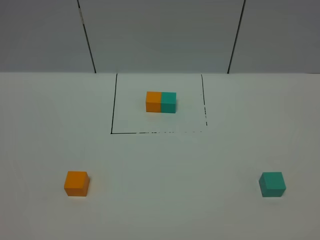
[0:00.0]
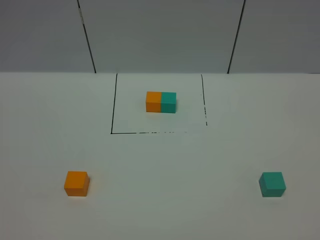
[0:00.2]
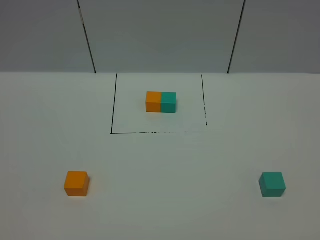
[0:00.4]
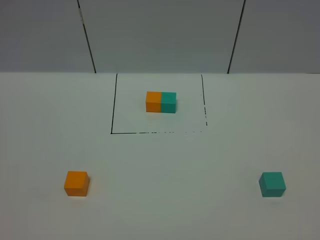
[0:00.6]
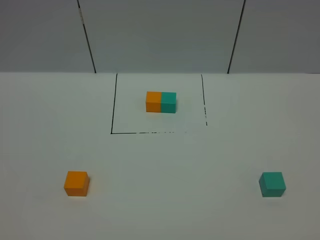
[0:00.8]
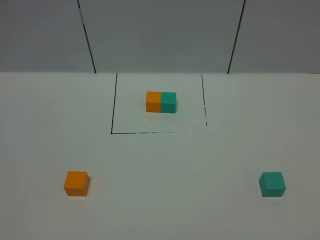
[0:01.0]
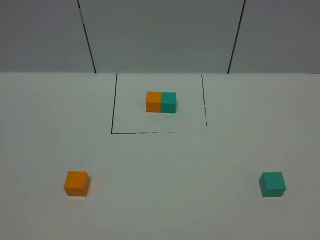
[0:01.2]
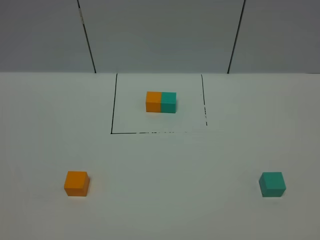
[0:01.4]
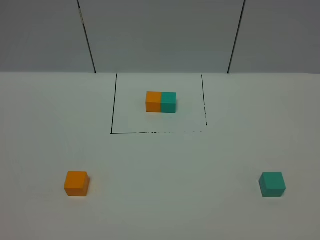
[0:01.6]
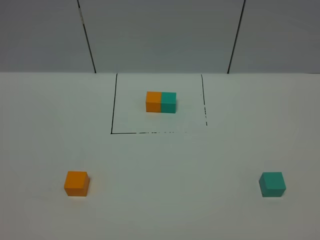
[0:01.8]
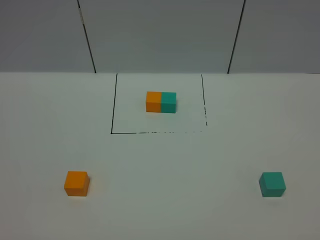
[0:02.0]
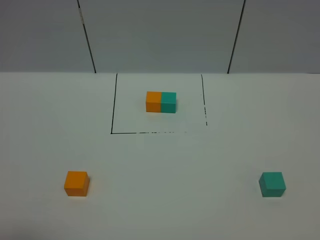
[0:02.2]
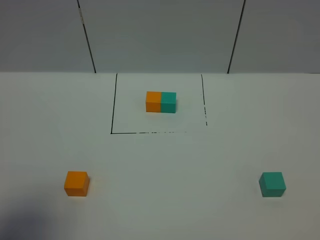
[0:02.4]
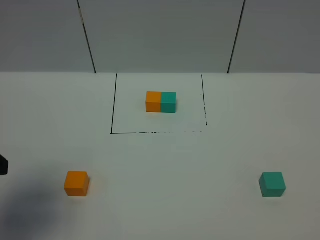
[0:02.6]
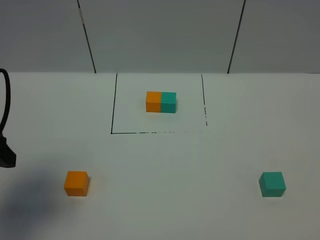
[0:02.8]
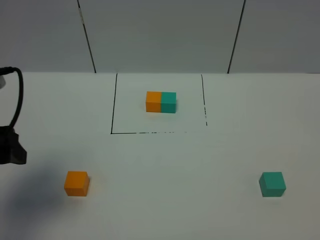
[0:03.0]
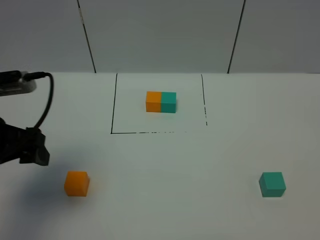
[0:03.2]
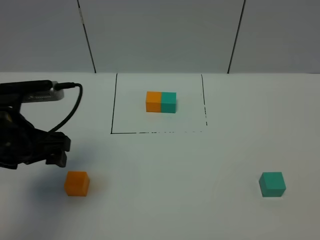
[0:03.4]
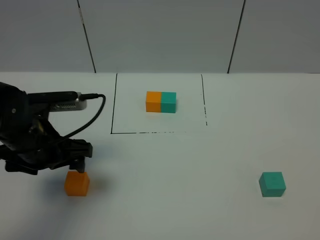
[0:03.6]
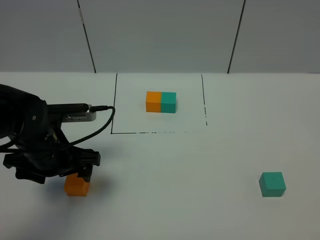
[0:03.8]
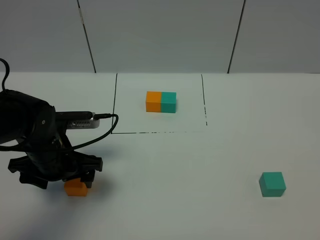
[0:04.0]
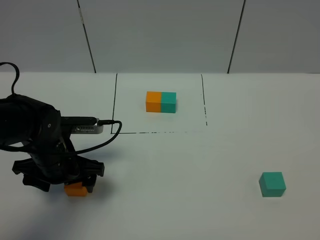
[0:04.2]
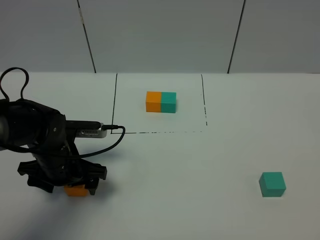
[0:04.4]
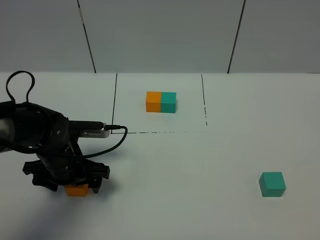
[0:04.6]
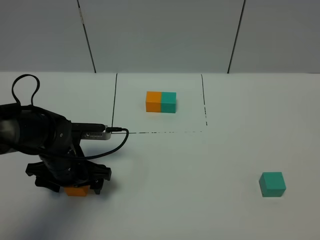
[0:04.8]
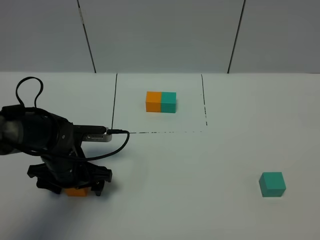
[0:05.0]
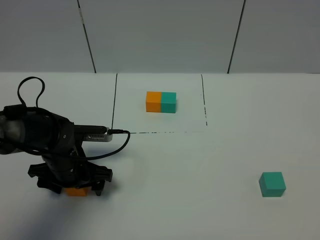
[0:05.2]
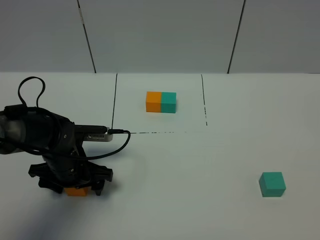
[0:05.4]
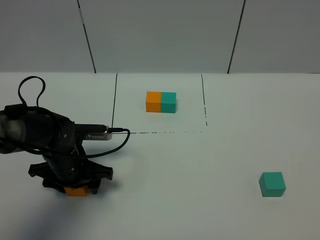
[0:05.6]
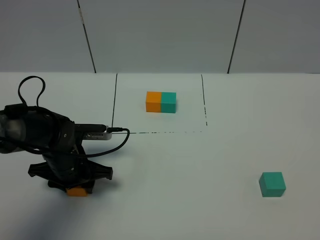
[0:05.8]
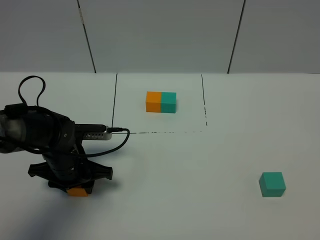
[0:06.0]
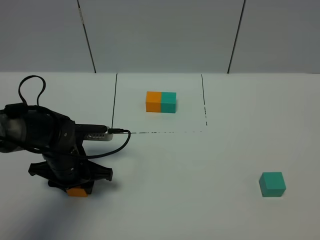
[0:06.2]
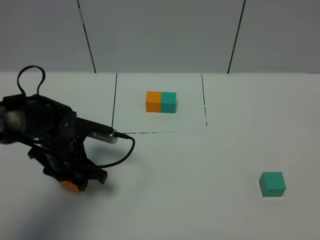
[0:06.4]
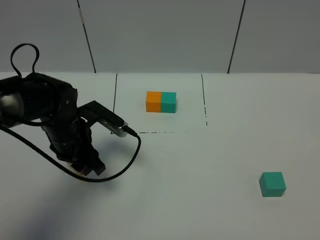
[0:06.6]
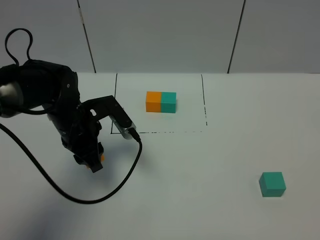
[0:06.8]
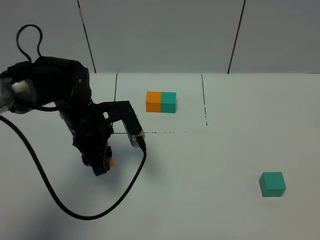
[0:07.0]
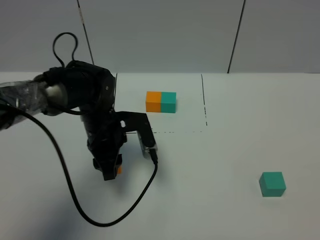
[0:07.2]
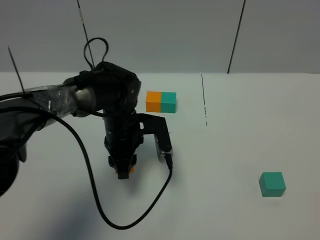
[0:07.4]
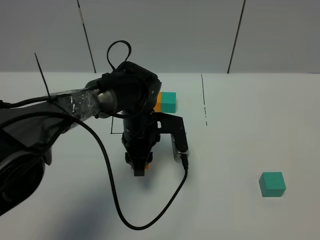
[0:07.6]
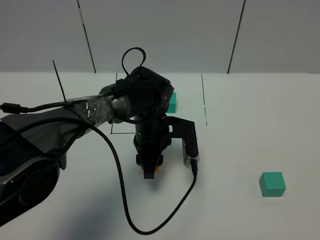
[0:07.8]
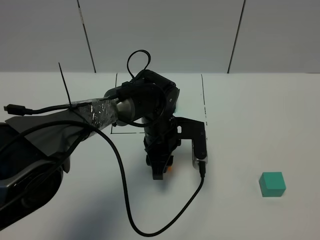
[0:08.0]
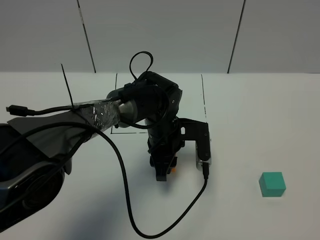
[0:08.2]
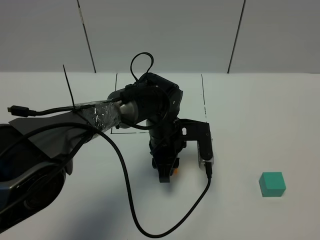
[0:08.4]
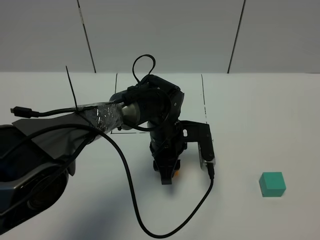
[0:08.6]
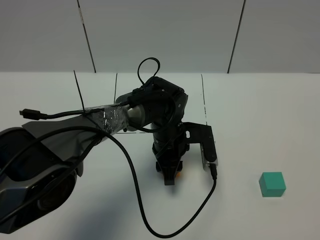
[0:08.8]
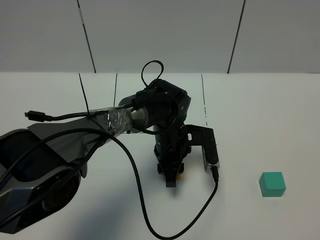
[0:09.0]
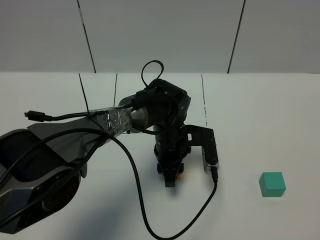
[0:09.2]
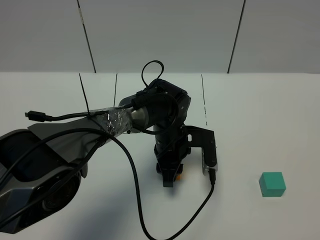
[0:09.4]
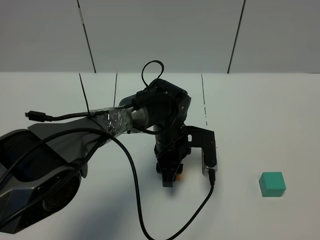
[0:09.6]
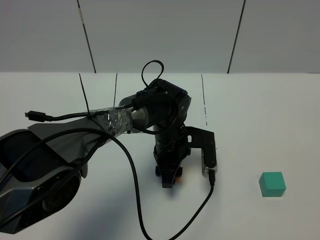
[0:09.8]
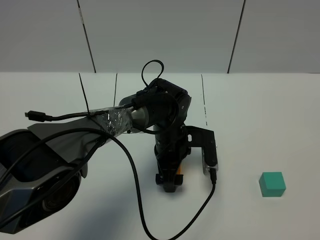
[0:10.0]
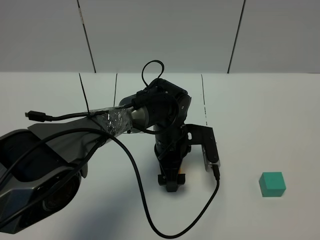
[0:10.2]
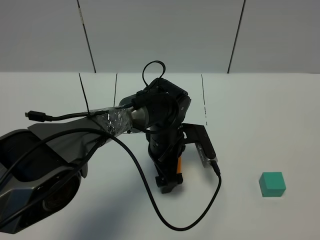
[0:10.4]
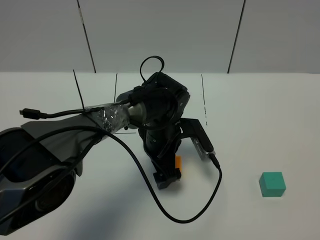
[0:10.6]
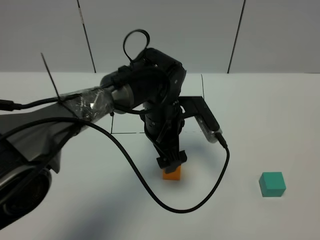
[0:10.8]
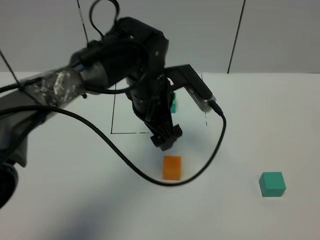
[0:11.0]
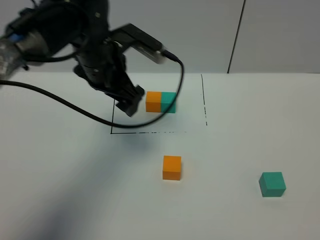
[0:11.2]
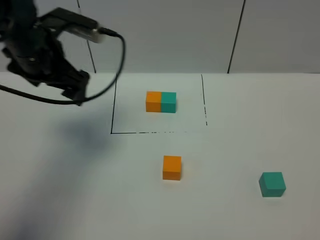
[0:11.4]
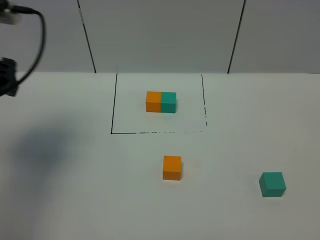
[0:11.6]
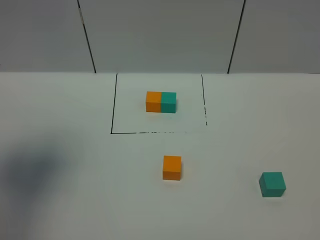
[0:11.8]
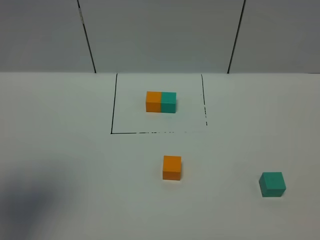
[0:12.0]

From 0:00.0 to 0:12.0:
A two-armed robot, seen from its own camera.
Task of the whole recording: According to the building block template in front, assemble the scattered blocks together.
Step, from 0:02.6 to 0:10.8: Put the orange cube in the center of the table.
From 0:00.0 to 0:01.6: The two grippers keep their place.
From 0:01.6 to 0:03.0: The left gripper travels forward by about 25 cm.
From 0:03.0 to 0:04.4: The left gripper travels downward, to the right and forward by some 20 cm.
From 0:04.4 to 0:06.0: The left gripper closes up.
From 0:06.0 to 0:07.6: The left gripper moves to the right and forward, approximately 15 cm.
From 0:07.6 to 0:09.0: The left gripper shifts some 5 cm to the right.
From 0:09.0 to 0:10.4: The left gripper opens its fingers.
From 0:10.4 to 0:12.0: The left gripper moves upward, to the left and backward, approximately 50 cm.

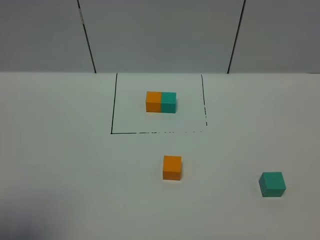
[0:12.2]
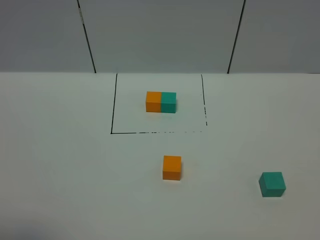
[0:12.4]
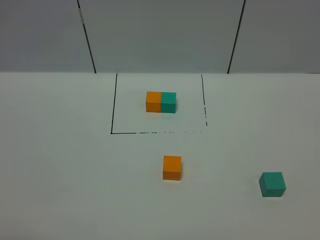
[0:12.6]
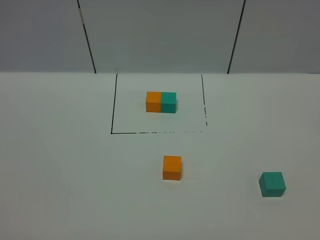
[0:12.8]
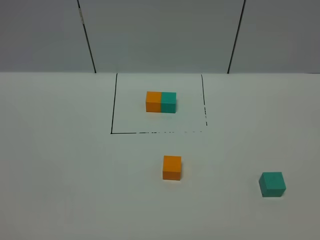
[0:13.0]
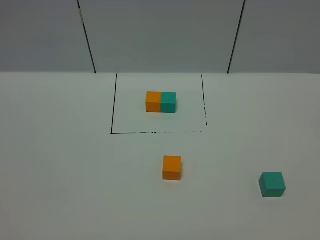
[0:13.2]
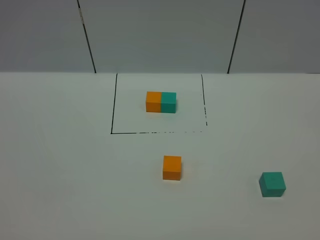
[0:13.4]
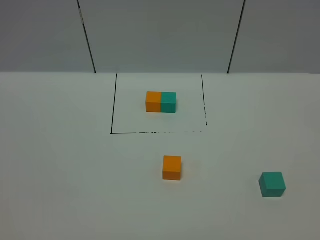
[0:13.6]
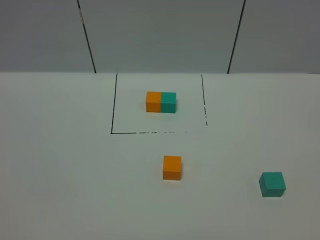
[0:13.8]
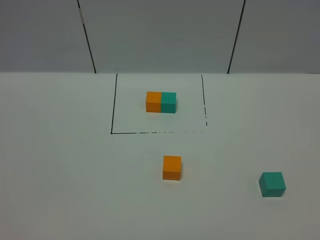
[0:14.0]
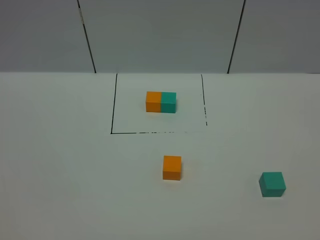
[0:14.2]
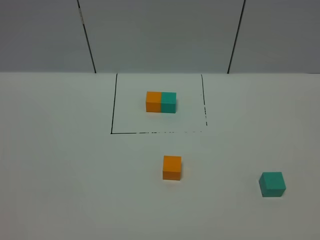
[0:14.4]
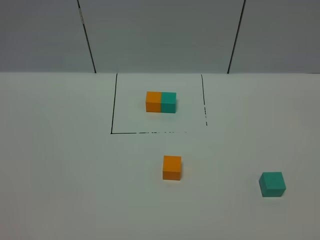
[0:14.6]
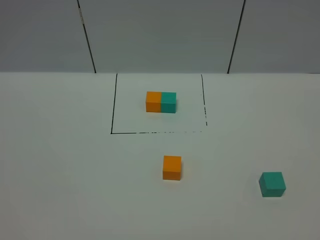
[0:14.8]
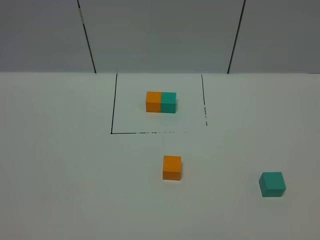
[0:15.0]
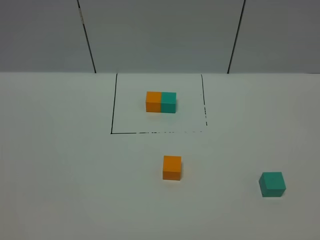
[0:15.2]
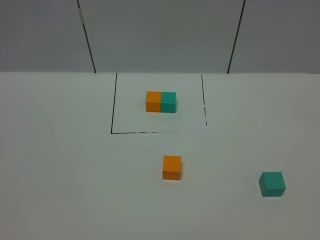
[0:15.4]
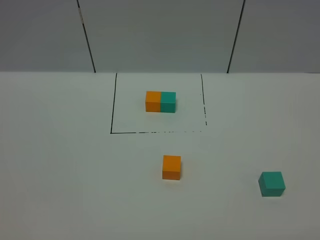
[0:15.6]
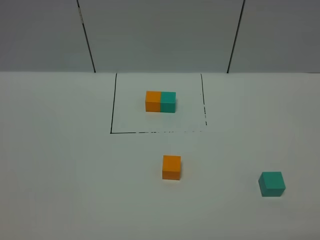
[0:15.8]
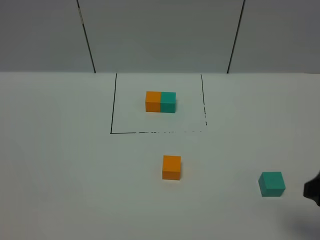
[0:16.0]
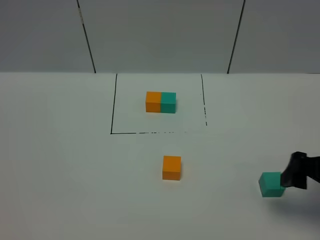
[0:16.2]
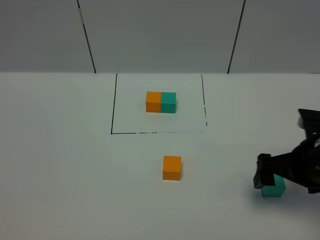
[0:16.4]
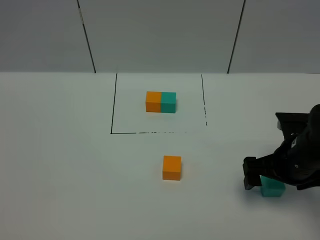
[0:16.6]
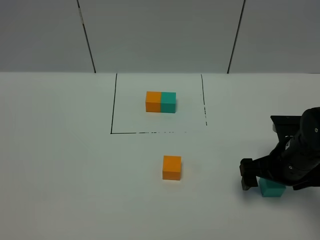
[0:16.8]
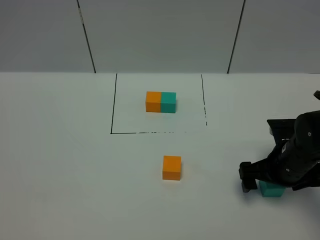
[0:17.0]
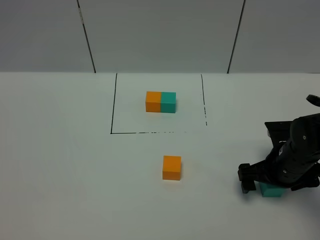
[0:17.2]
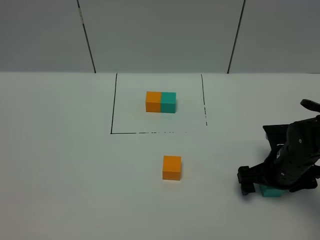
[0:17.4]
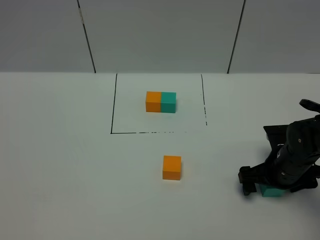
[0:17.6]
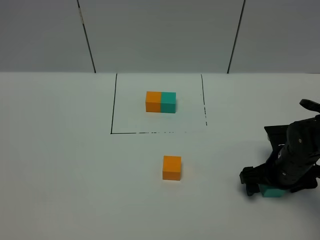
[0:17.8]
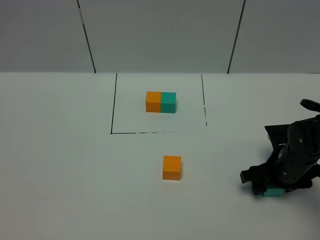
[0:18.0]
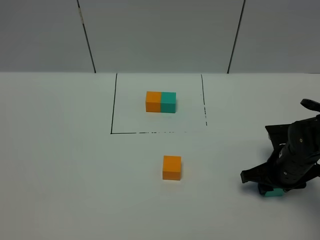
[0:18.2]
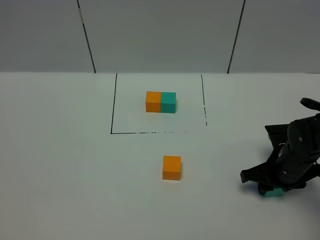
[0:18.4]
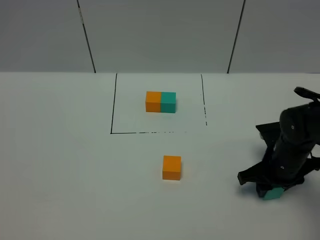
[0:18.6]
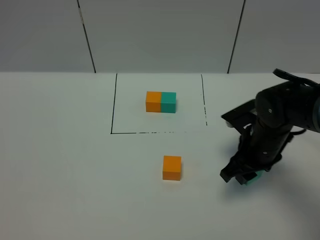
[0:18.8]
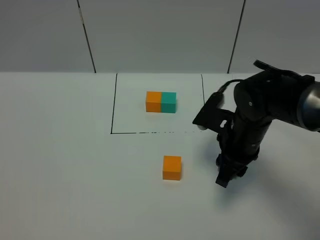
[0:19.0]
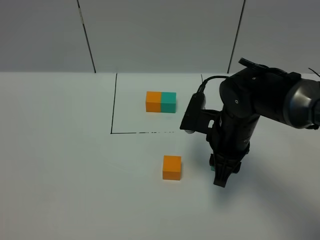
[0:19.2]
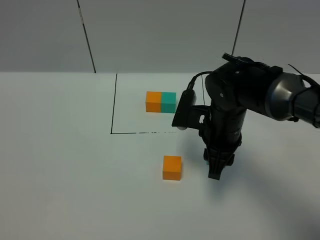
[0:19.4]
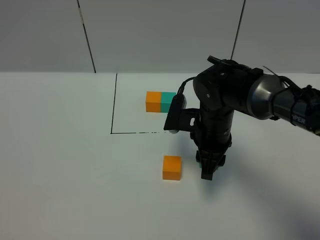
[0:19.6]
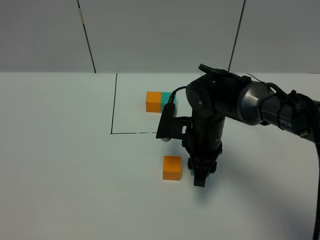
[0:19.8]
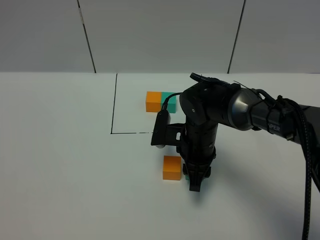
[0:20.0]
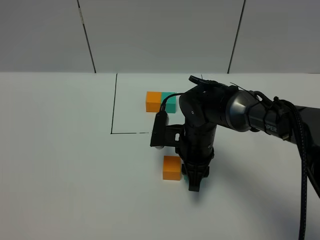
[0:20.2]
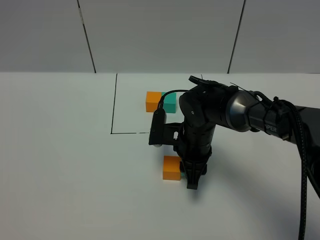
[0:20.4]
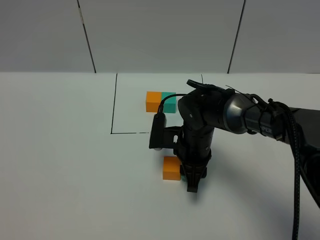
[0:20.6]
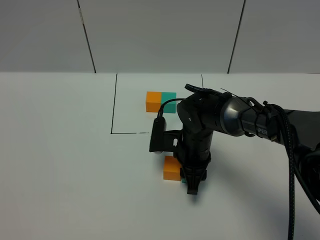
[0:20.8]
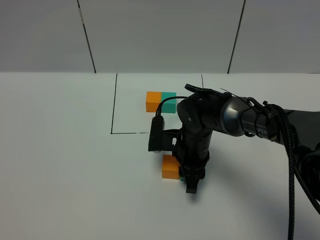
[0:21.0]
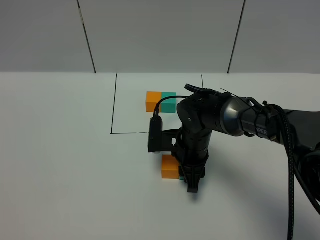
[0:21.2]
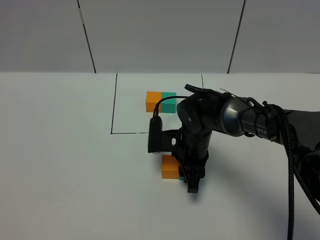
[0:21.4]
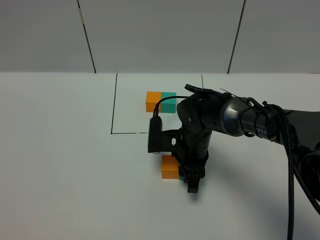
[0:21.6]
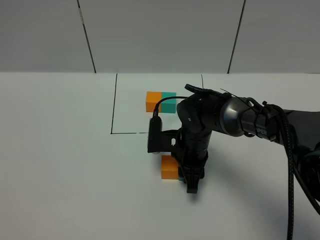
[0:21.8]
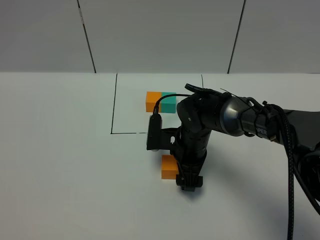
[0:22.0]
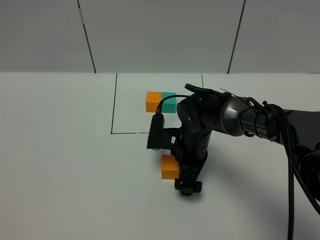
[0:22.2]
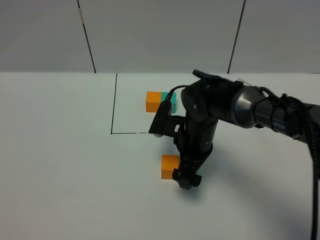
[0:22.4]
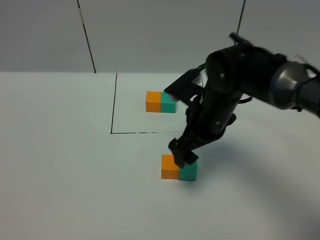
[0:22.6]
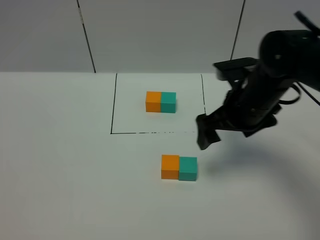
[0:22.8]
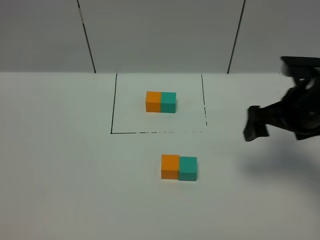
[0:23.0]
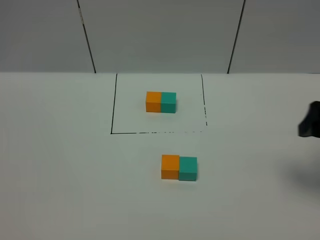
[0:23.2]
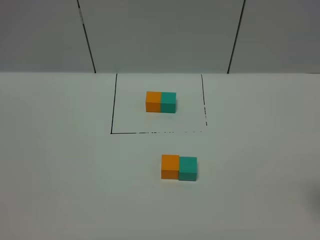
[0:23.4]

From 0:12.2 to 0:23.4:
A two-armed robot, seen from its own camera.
Task of the whole recording: According to the building block template in front, assemble the scattered blocks together.
Step, from 0:12.2 to 0:22.6: Put the green cube on the right of the orange cube.
From 0:12.2 to 0:13.8: The left gripper moves downward and backward, about 15 cm.
From 0:15.4 to 0:17.0: The right gripper goes roughly 30 cm forward and downward.
From 0:17.0 to 0:18.6: The right gripper closes.
From 0:18.6 to 0:20.2: The right gripper travels to the left by roughly 15 cm.
From 0:20.2 to 0:21.8: The grippers move only a little.
From 0:21.8 to 0:23.4: The right gripper travels to the right, backward and upward by some 40 cm, and opens.
